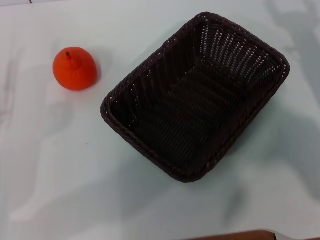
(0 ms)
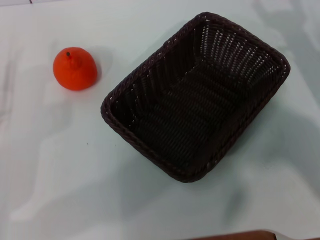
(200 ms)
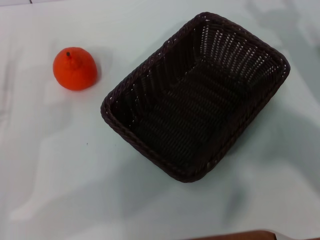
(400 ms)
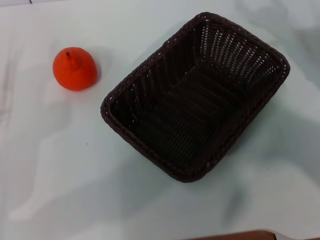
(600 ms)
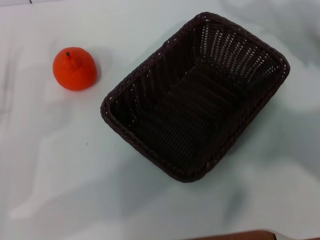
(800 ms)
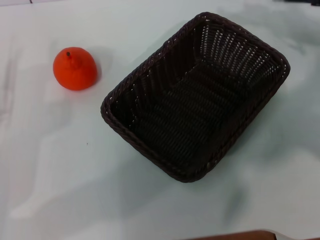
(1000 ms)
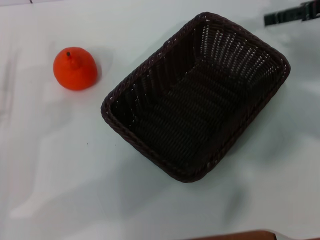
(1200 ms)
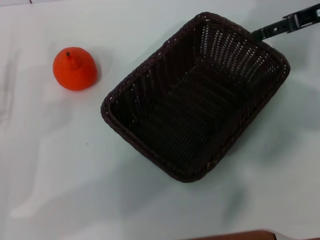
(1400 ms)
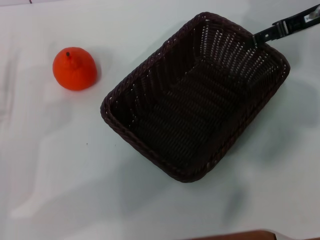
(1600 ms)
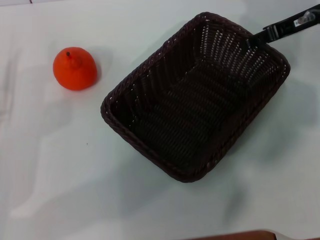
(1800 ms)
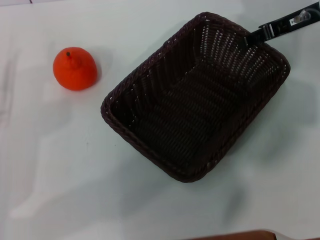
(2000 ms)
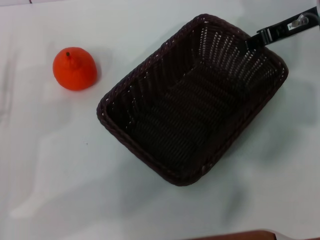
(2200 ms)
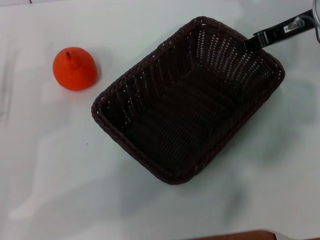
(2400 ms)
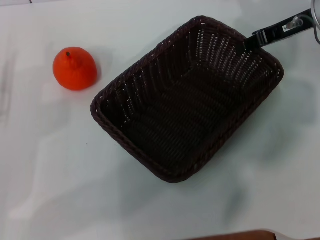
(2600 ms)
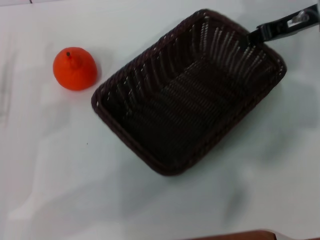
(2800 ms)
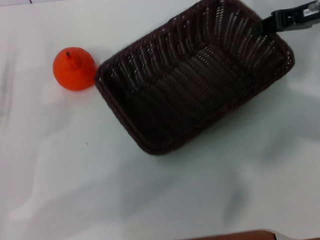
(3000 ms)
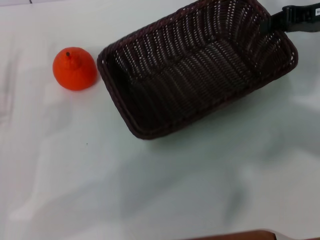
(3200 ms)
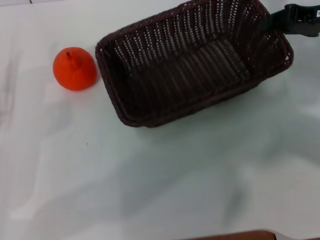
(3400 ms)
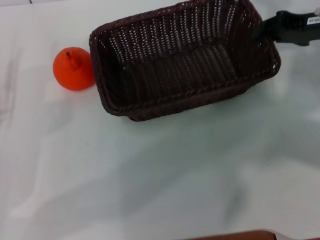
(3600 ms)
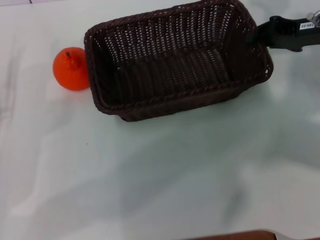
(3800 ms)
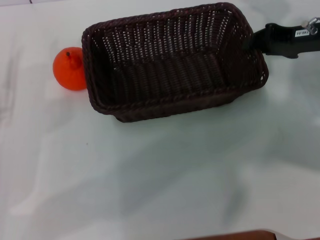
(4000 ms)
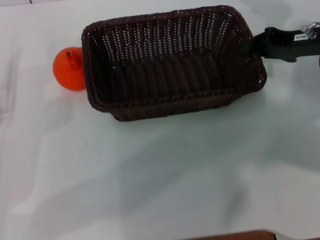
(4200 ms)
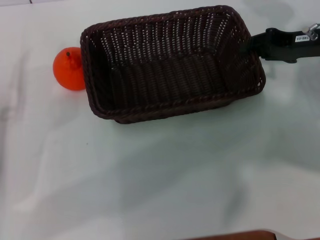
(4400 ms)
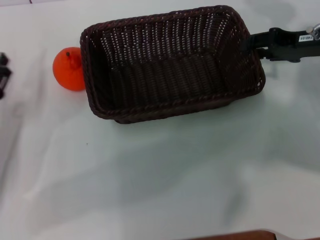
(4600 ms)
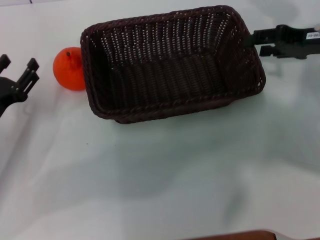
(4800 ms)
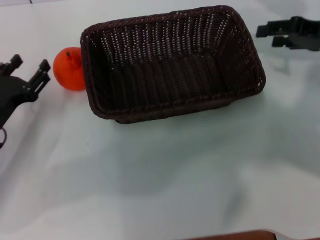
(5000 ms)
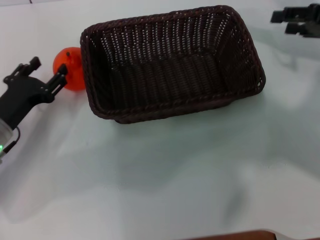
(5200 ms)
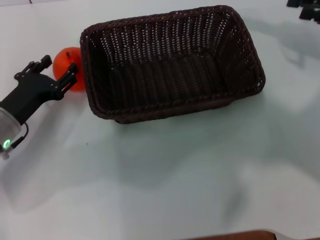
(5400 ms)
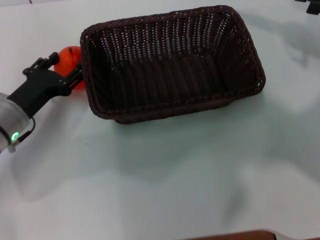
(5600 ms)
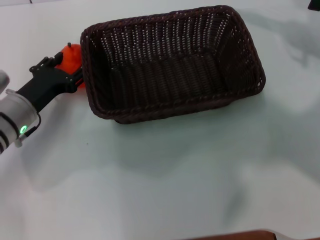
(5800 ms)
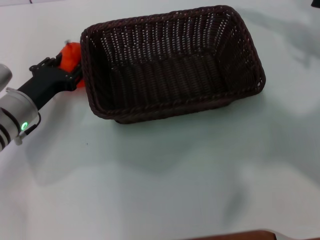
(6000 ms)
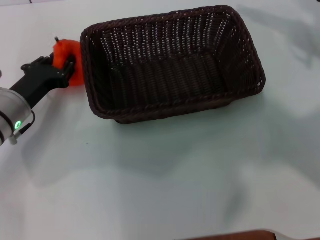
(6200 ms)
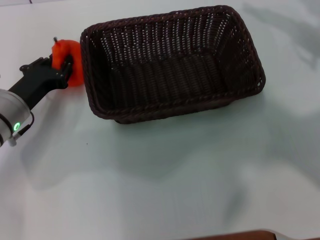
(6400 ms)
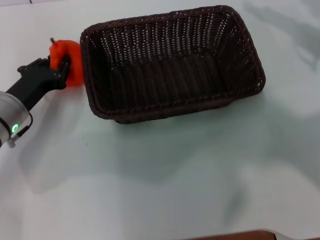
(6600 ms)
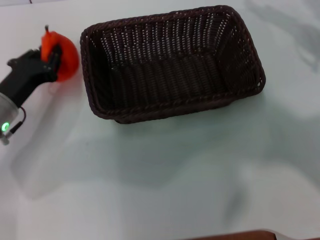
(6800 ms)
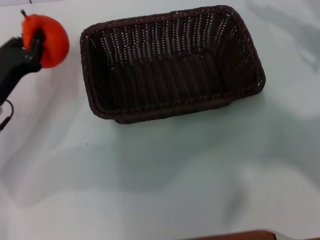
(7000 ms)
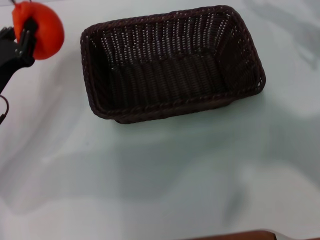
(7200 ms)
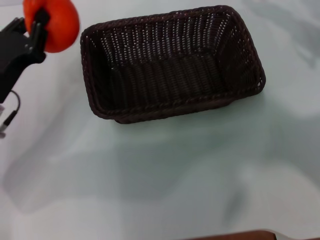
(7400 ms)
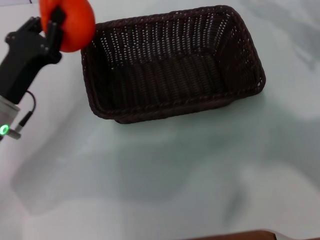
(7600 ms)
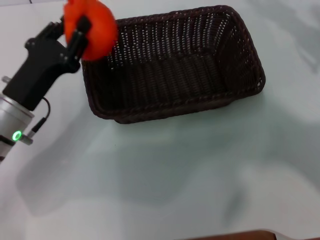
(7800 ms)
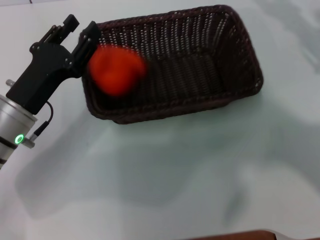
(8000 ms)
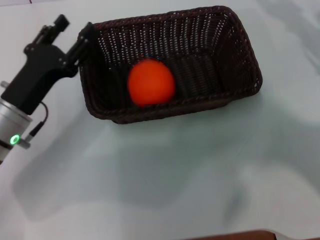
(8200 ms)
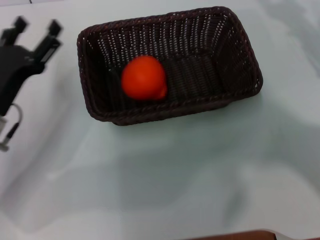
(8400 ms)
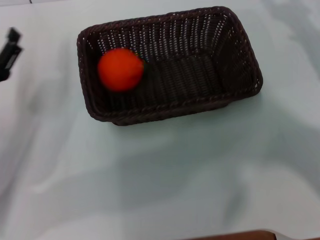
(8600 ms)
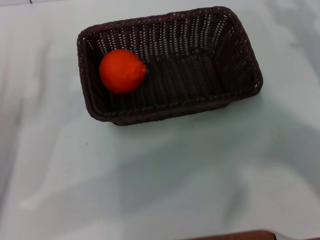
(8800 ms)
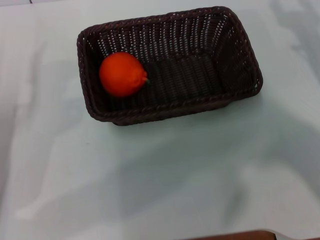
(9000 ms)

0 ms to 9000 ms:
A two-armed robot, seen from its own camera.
Task of the whole recording: the right gripper pick up the black basket and place it horizontally in the middle of the table, the left gripper pick up the orange and place it into the black basket.
Step, 0 ms to 2800 ms: Pick up the dark basket with the right gripper.
Step, 3000 ms to 4800 ms: Place the dark basket in the center of view with the right gripper.
Step, 5200 ms to 6800 ms: Pick up the orange with the left gripper.
Step, 7000 ms to 8000 ms: Place the orange into the dark basket with the left gripper.
0 ms to 1600 ms: The right gripper travels forward and upward by some 15 cm.
1600 ms to 3000 ms: The right gripper closes up.
3000 ms to 4400 ms: The right gripper moves approximately 5 cm.
4400 ms to 6000 ms: The right gripper heads to the right, covering some 5 cm, and opens up; the left gripper moves forward and to the right, approximately 10 cm.
6000 ms to 7600 ms: The left gripper moves some 5 cm, and closes its fingers.
7600 ms to 9000 ms: The right gripper moves downward, roughly 5 cm; the left gripper is displaced to the left and backward by roughly 10 cm, and opens its fingers.
